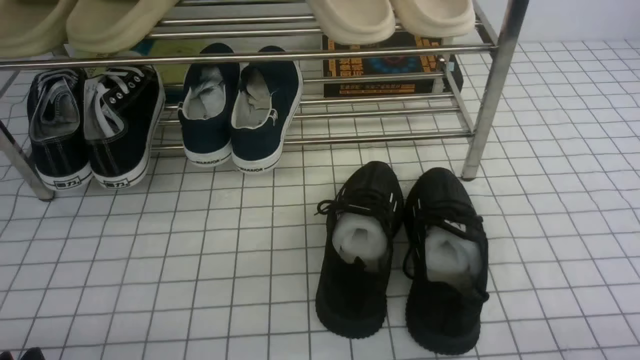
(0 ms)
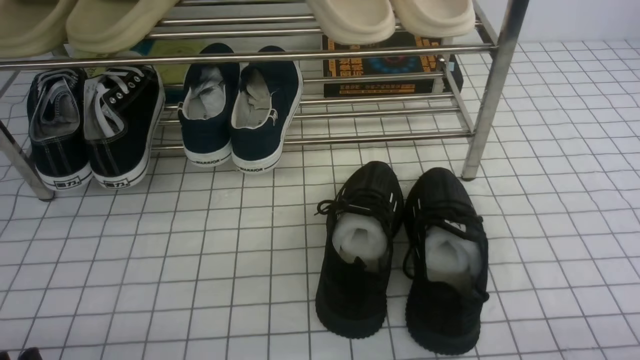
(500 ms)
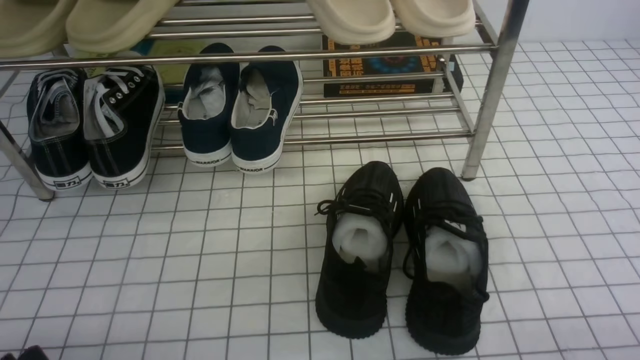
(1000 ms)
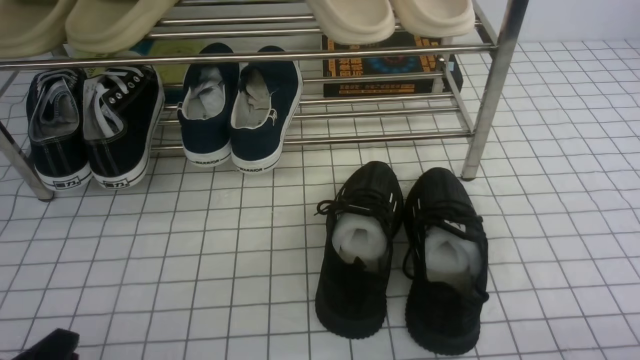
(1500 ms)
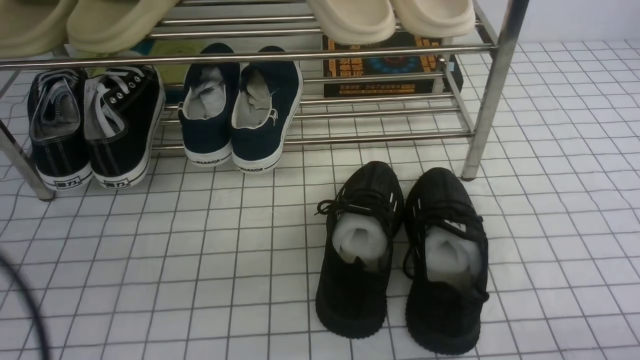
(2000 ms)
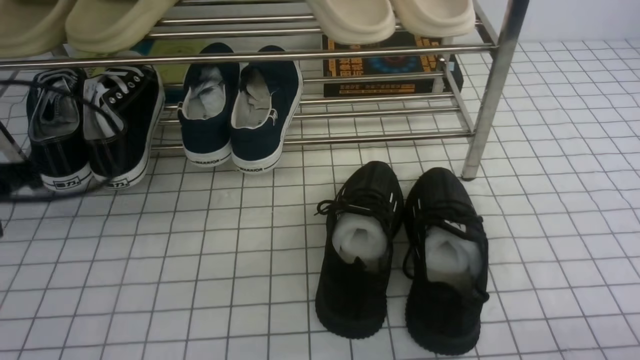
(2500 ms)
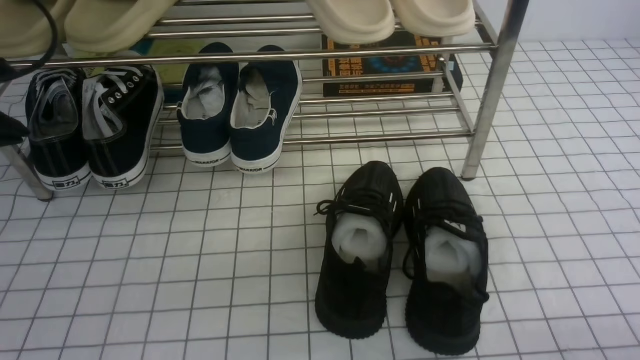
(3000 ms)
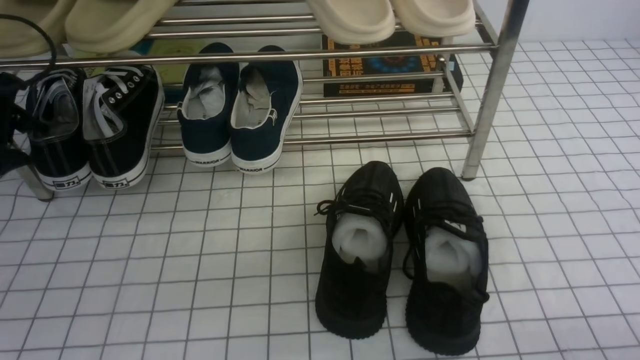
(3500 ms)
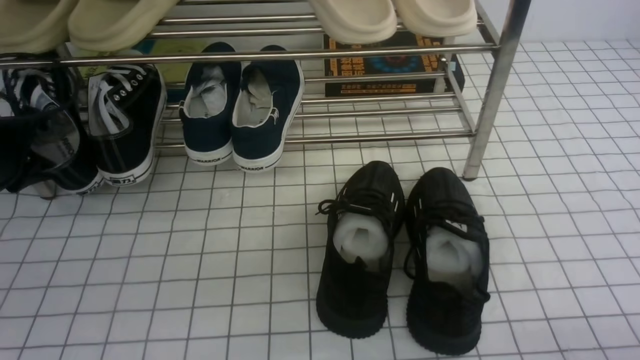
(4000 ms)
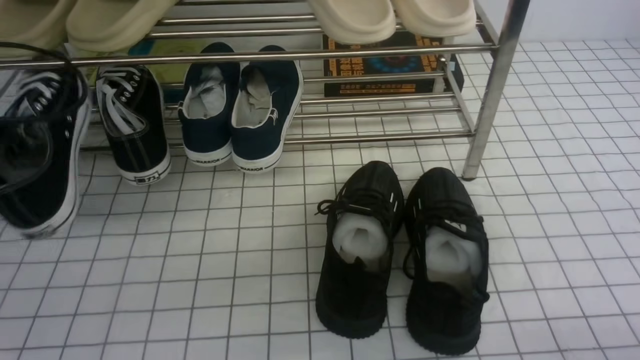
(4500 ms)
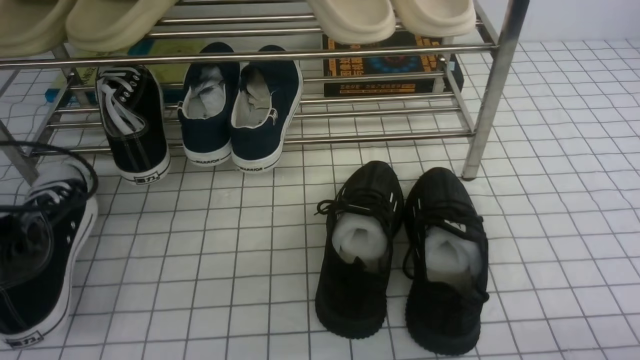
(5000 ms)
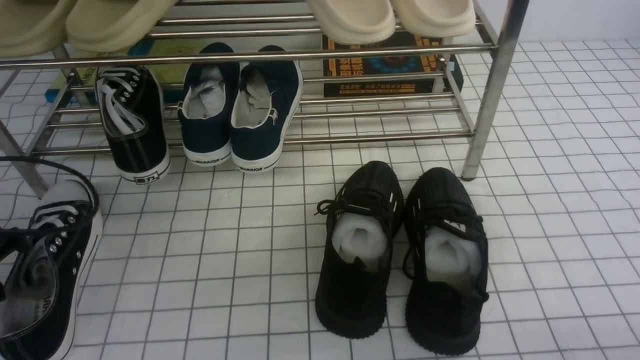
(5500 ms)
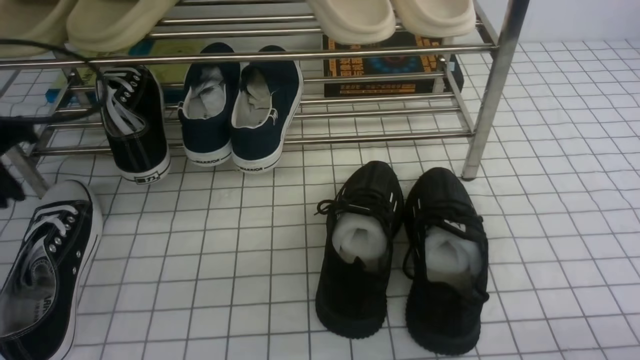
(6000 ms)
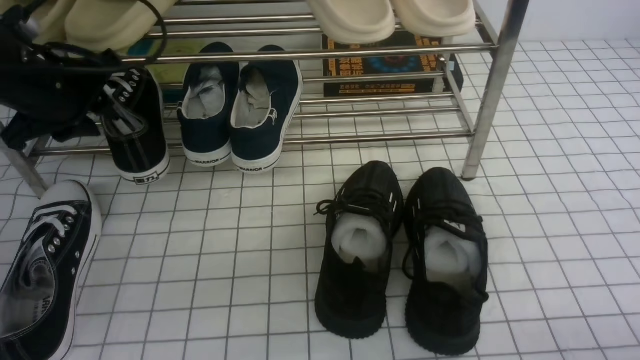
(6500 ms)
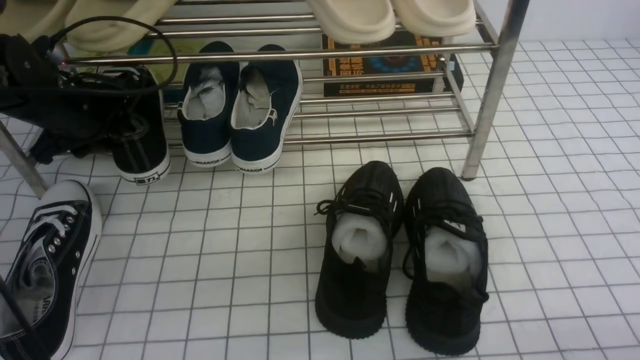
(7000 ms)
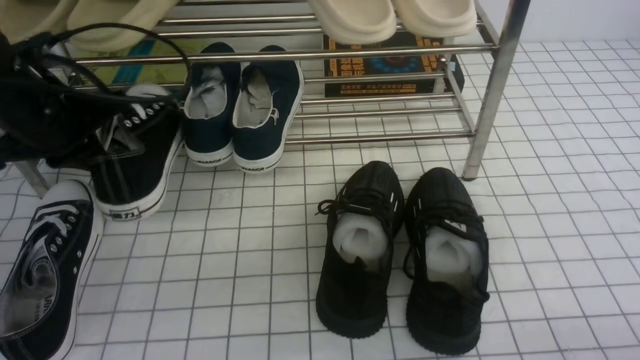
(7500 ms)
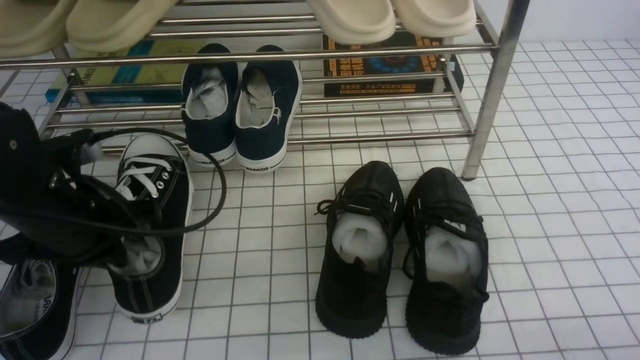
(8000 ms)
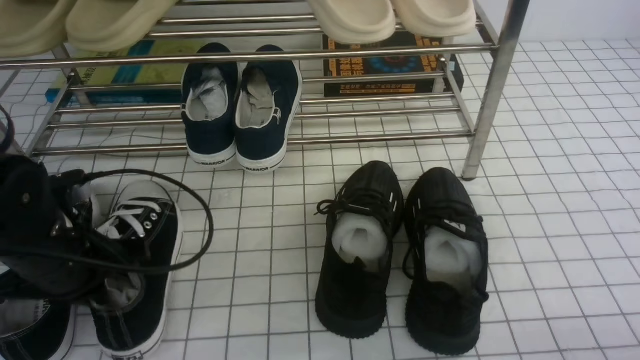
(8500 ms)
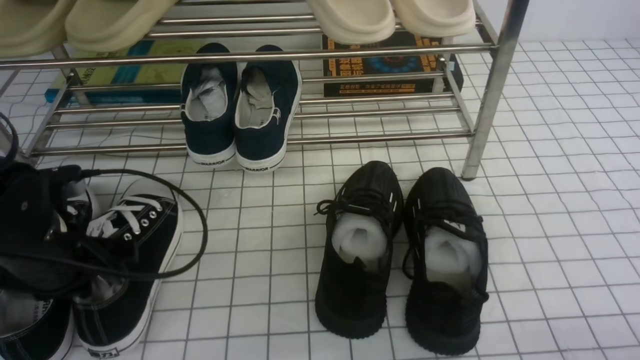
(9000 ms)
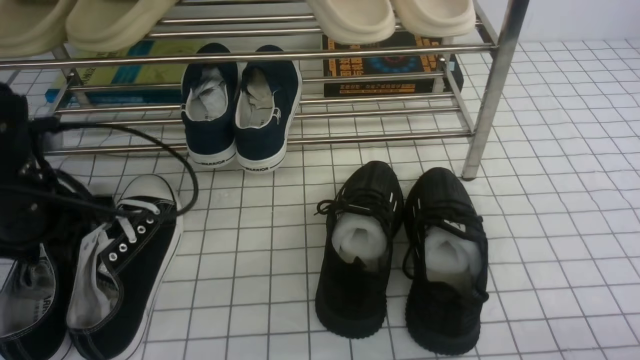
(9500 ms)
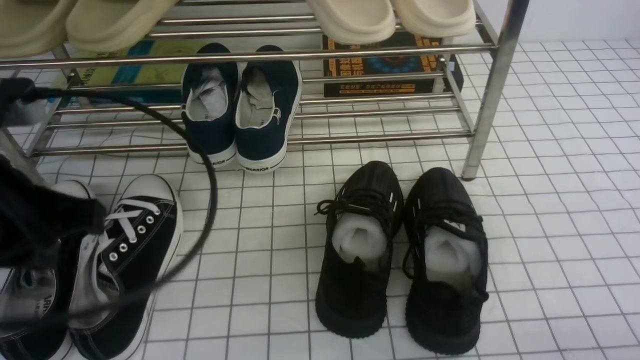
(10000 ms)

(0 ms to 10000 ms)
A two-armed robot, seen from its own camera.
Step, 0 ms - 3500 ms: use the left arm to clamp a shoe on the left side of the shoe rack.
Step, 4000 ms - 5500 ms: Use your left arm to remove the clamped shoe from the shoe rack and put it down.
Step, 6000 ms - 7000 ms: use the left arm to clamp a shoe on the left side of the shoe rack.
Step, 7500 ms - 9500 ms: Use your left arm to remove the clamped shoe from the shoe rack and put it down.
0 ms - 2000 ms: The left gripper travels upward by about 15 cm, and closes up.
2000 ms - 4000 ms: The left gripper heads forward and to the left, covering about 30 cm, and opens and closes again.
4000 ms - 6000 ms: The left gripper moves upward, backward and to the right, about 10 cm.
6000 ms - 8000 ms: The left gripper goes approximately 10 cm to the right and downward, goes forward and returns, roughly 10 cm each way, and closes.
8000 ms - 10000 ms: The left gripper travels upward and backward by approximately 15 cm, and opens and closes again.

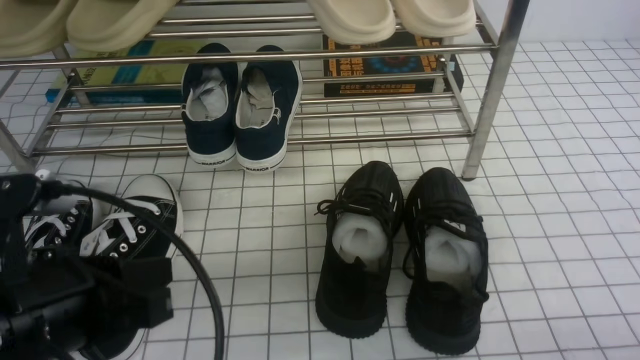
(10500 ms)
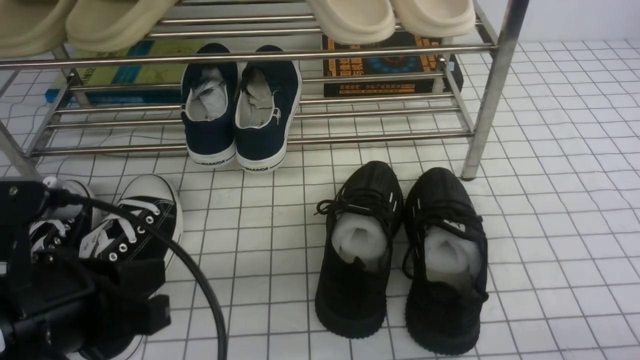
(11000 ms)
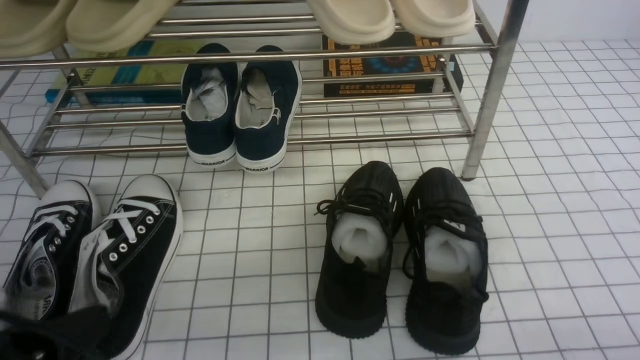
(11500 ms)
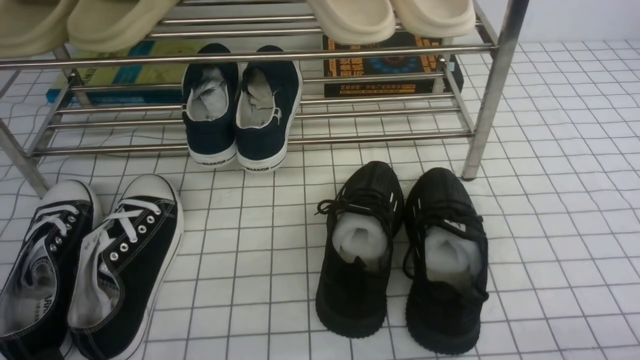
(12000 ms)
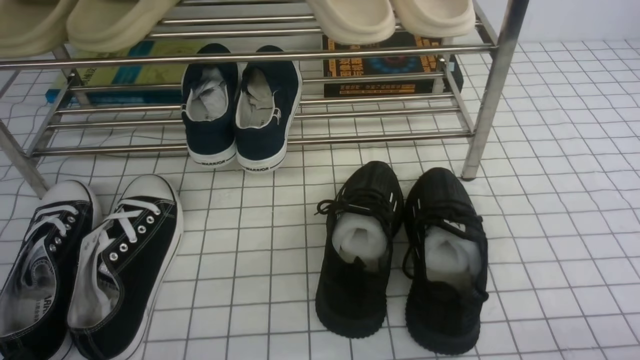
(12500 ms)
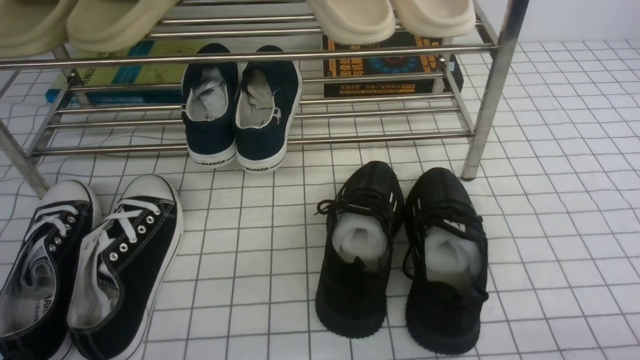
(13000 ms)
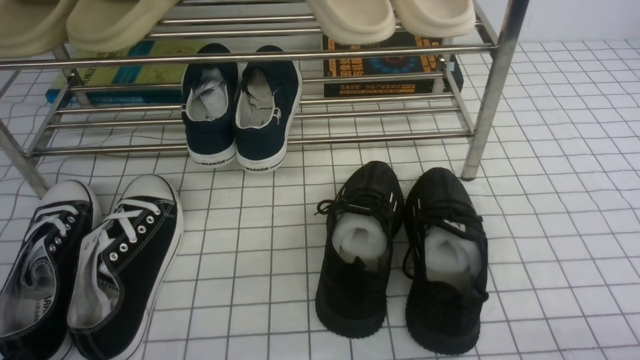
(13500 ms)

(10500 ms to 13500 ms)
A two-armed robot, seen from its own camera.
10500 ms - 12000 ms: The left gripper shifts approximately 15 cm downward, backward and to the left.
